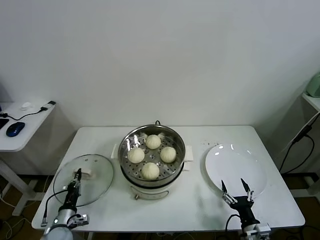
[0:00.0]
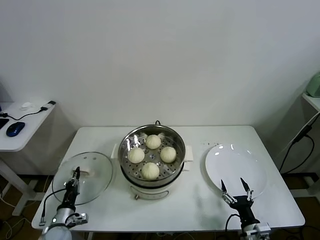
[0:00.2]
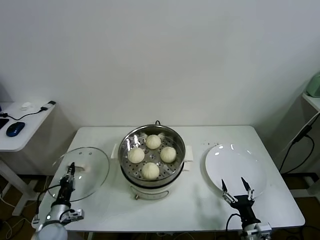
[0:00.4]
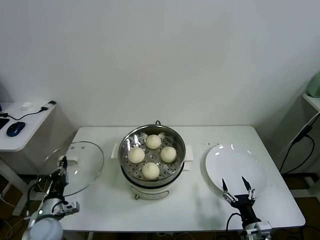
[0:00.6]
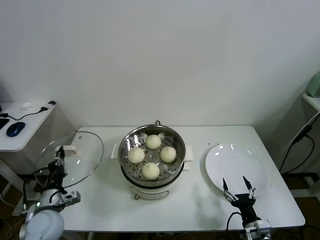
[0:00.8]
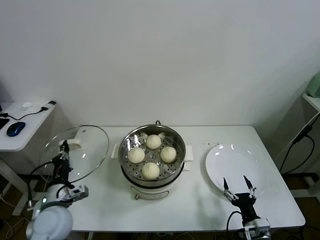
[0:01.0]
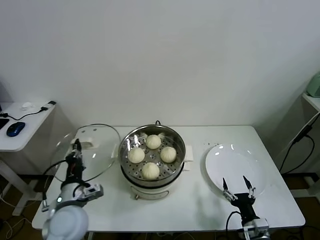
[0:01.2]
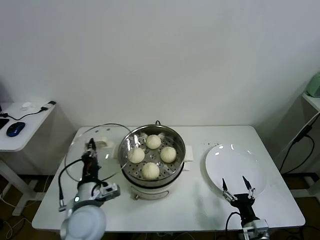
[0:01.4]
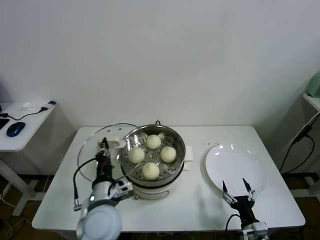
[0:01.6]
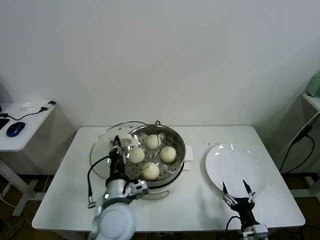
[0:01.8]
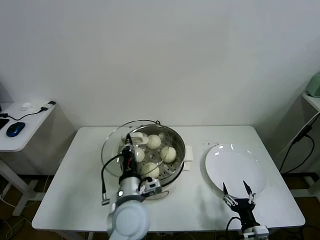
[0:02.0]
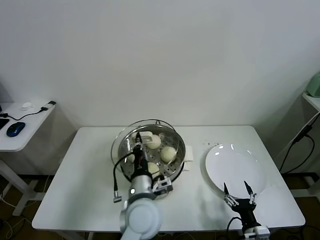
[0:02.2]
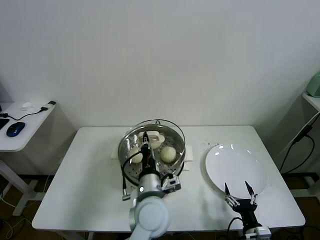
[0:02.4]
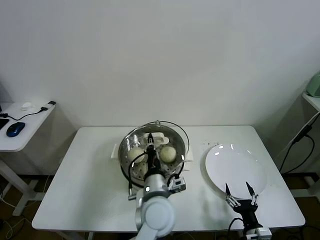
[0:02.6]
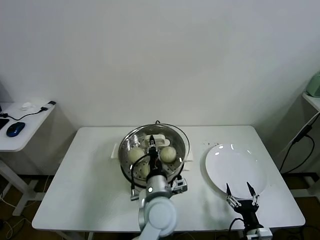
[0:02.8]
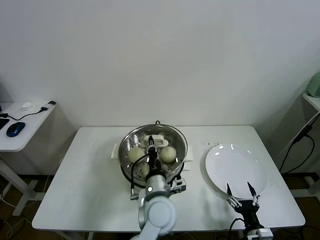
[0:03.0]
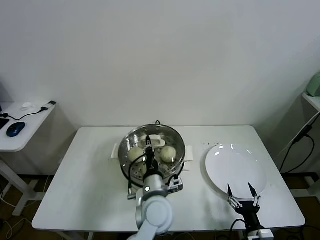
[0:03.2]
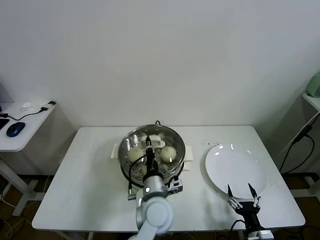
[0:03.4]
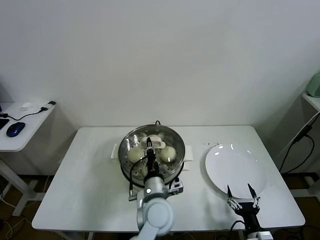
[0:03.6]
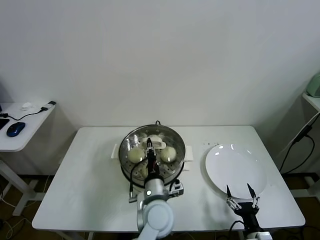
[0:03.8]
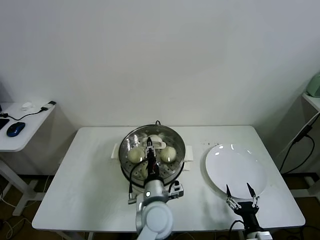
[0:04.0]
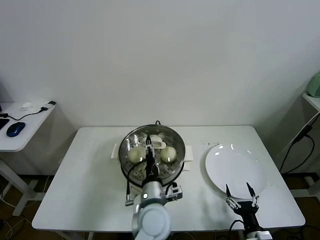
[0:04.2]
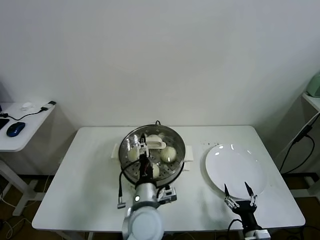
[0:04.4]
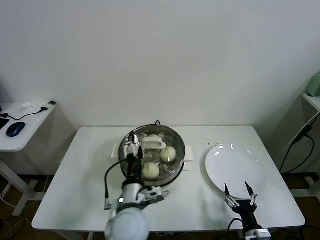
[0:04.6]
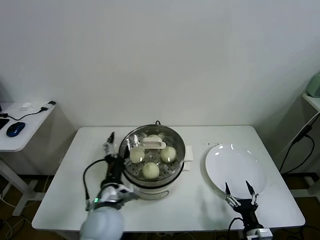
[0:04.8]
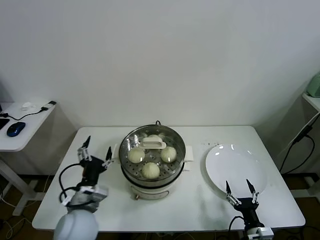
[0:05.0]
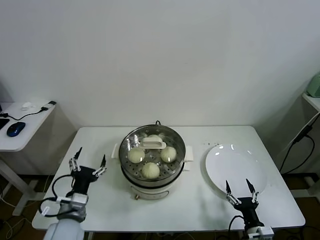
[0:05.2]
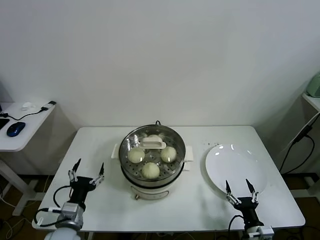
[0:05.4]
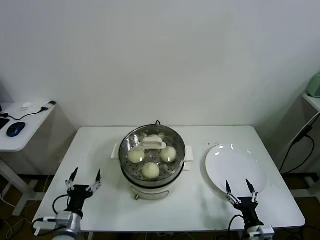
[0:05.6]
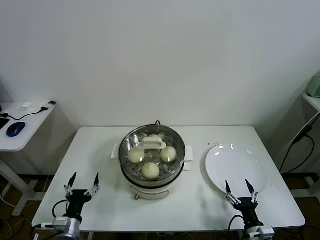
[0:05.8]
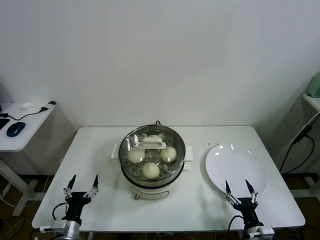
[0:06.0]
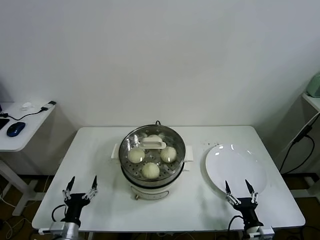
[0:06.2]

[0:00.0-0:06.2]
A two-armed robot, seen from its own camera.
Task of the whole recording: take steamed baozi put them in steamer.
Step, 0:00.2 to 0:04.4: Place the pot lid on the steamer with left gripper.
0:00.0 to 0:01.6: The left gripper shifts roughly 30 cm upward and to the right.
0:01.6 to 0:03.2: The left gripper is displaced to the right by roughly 15 cm.
0:03.2 to 0:04.6: The left gripper shifts approximately 5 cm to the left, and opens.
0:04.6 to 0:06.2: The left gripper travels to the left and downward by about 30 cm.

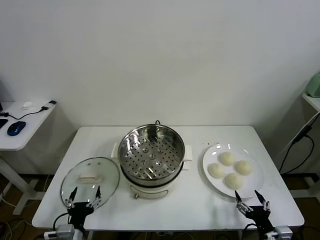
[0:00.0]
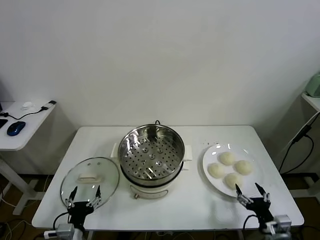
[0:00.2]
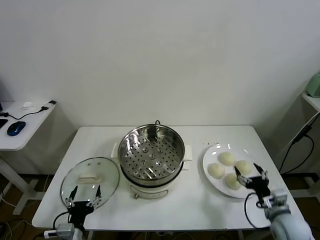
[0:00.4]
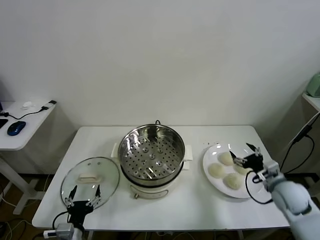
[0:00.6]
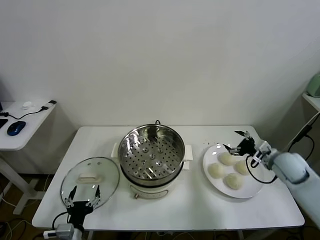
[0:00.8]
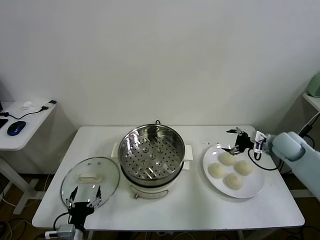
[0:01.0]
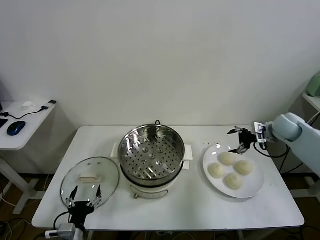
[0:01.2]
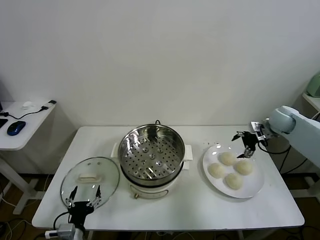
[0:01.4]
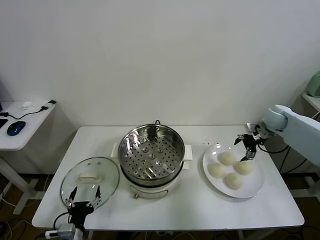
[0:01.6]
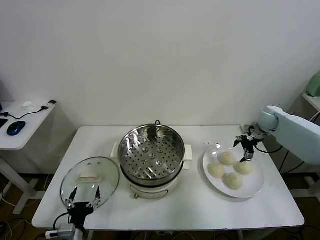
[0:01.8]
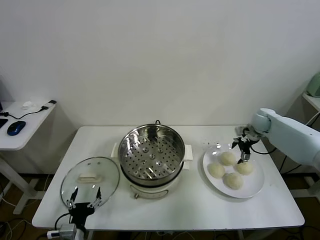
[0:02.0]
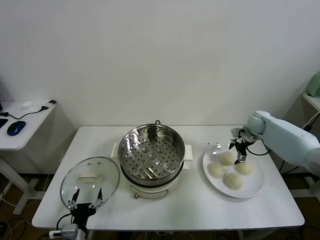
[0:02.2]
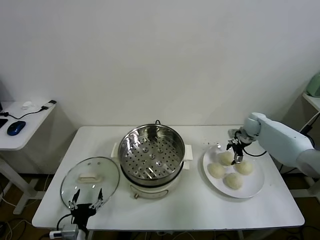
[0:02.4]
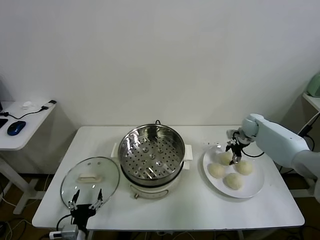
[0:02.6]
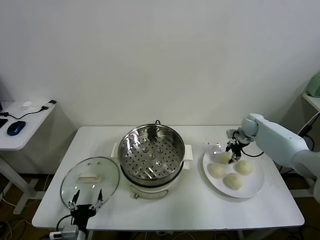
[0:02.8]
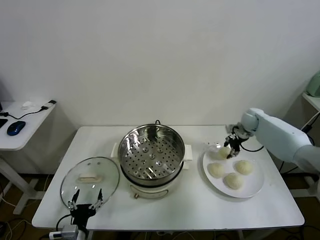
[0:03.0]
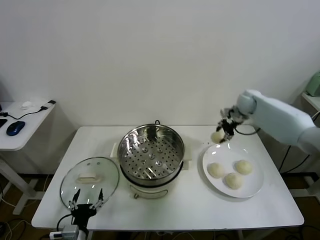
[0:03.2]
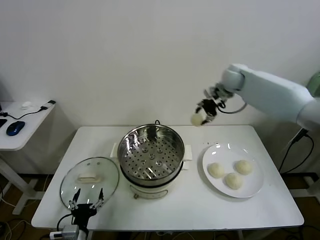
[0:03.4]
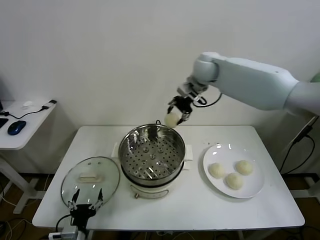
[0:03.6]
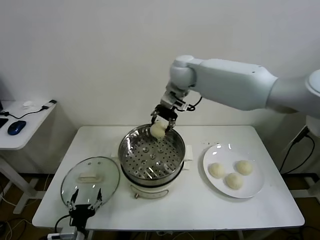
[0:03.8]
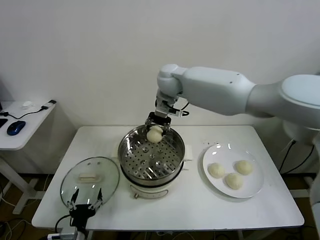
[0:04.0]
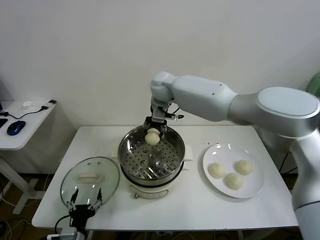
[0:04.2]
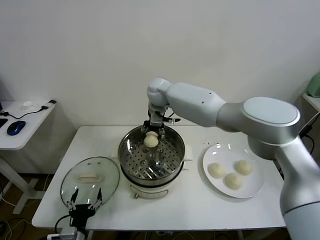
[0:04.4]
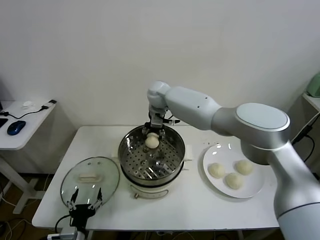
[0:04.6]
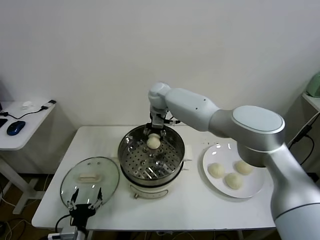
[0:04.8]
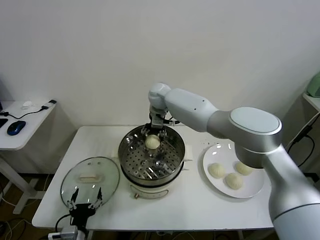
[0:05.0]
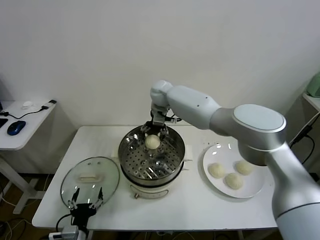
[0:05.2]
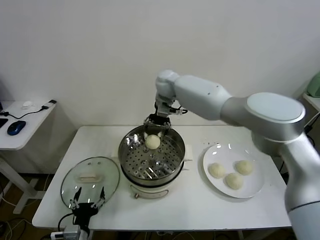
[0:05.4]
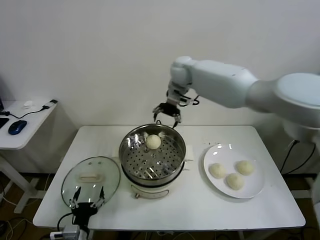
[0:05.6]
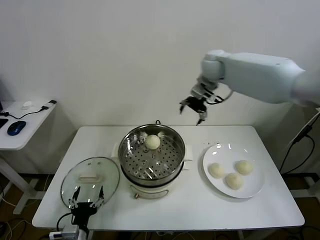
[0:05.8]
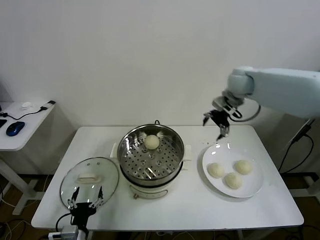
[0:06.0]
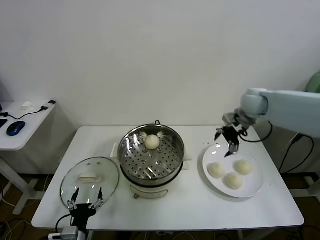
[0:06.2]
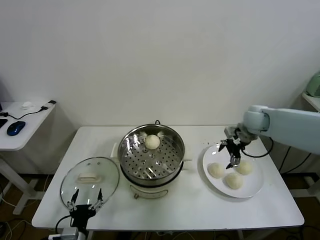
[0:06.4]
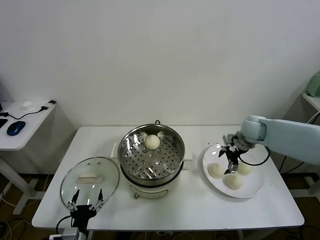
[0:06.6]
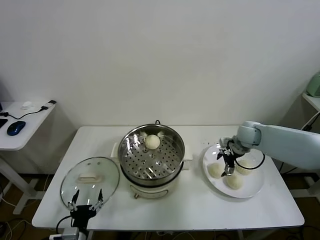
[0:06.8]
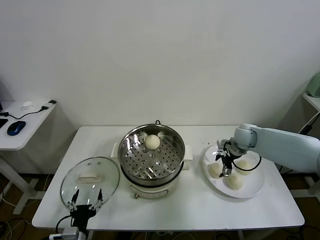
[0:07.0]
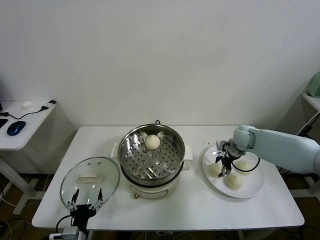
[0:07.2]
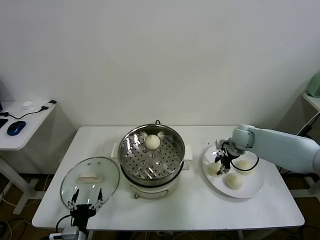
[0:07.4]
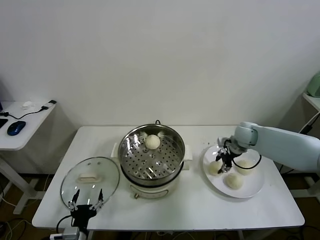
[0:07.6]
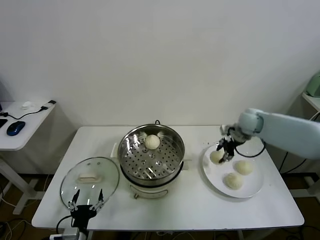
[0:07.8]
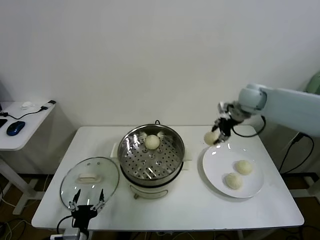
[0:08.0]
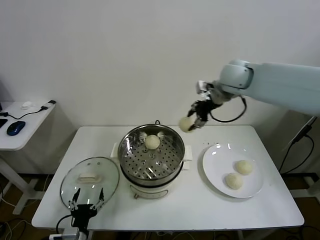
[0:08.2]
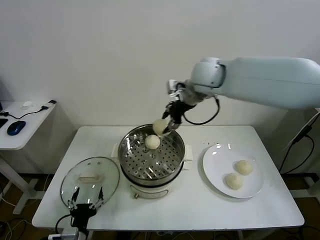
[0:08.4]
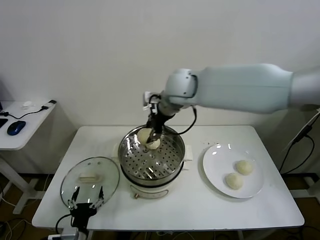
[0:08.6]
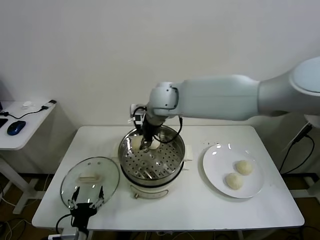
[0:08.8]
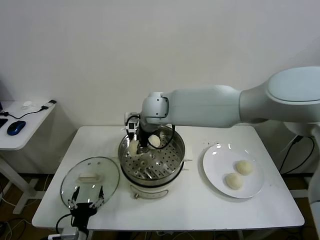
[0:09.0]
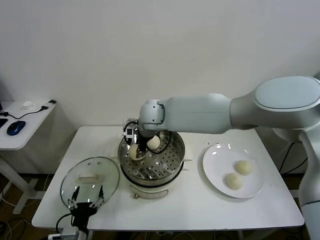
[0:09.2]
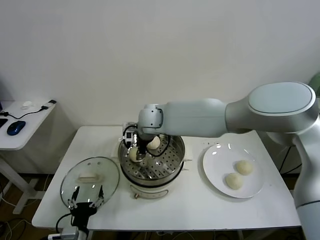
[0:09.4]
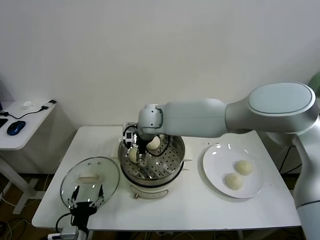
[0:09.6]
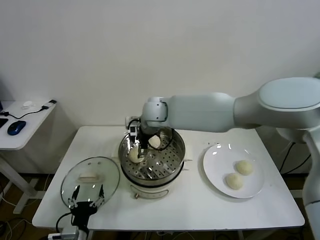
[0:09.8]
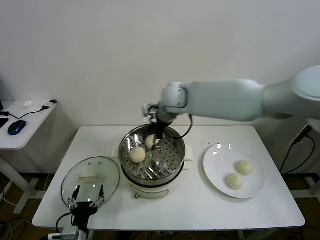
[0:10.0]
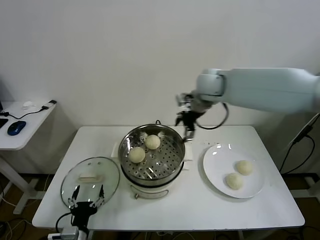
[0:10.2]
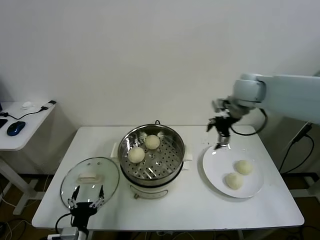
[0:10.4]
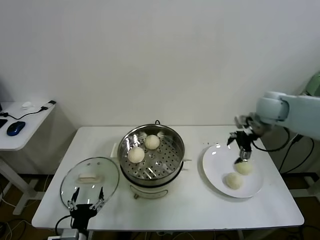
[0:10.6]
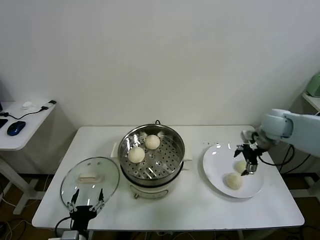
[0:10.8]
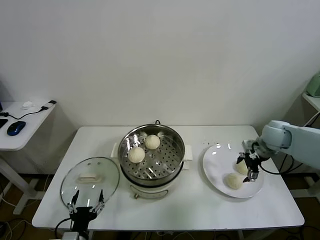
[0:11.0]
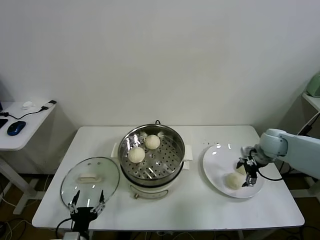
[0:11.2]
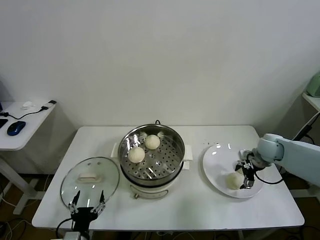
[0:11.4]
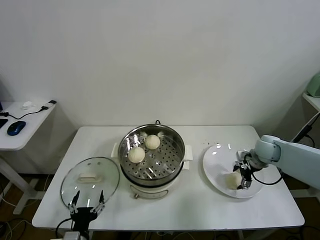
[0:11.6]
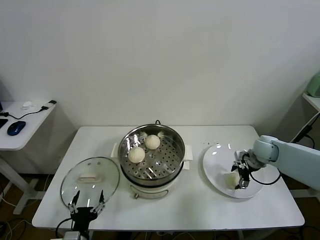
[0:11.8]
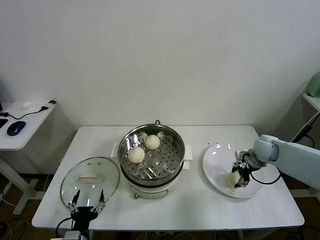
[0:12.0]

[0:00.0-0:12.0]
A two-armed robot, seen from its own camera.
Task of the whole recording: take steamed baozi put them in steamer.
Step, 0:00.0 to 0:02.6: Grasp the baozi in the plate with right gripper.
Step, 0:02.8 to 0:05.2: Place the baozi on the steamer with right gripper.
Step, 0:05.4 to 0:07.2: Grasp the baozi in the plate with right gripper.
Step, 0:07.4 to 0:09.8: Place the baozi on the steamer with right gripper.
0:01.6 to 0:03.0: The right gripper moves to the left and forward, roughly 10 cm, and closes its fingers.
0:03.0 to 0:04.4: The right gripper is displaced to the left by some 40 cm.
0:04.4 to 0:06.0: The right gripper heads to the right, covering about 30 cm, and opens its fingers.
0:06.0 to 0:07.6: The right gripper moves downward, about 15 cm, and closes up.
0:07.6 to 0:09.0: The right gripper travels to the left by about 35 cm.
0:09.0 to 0:10.4: The right gripper travels to the right by some 30 cm, and opens.
0:10.4 to 0:12.0: The right gripper shifts some 25 cm downward and to the right, and closes its fingers.

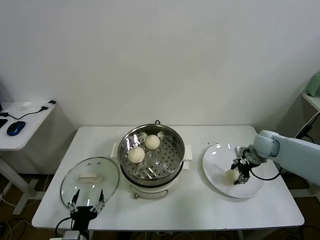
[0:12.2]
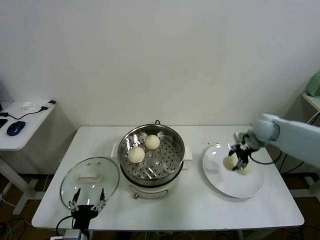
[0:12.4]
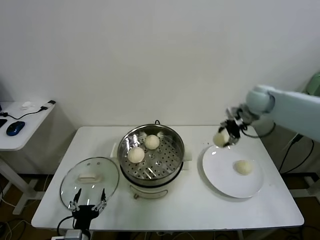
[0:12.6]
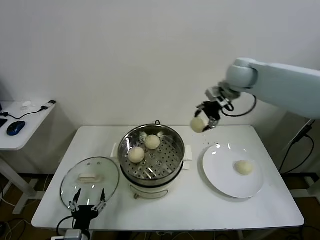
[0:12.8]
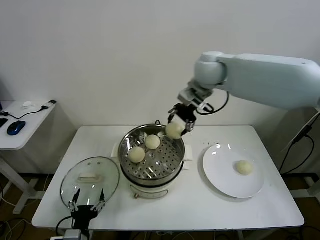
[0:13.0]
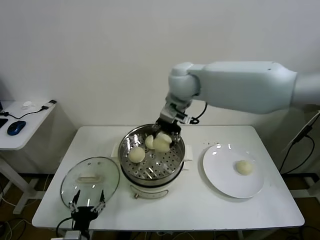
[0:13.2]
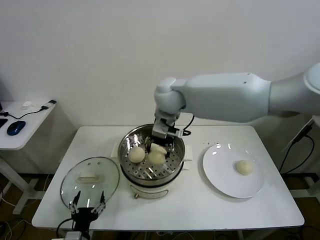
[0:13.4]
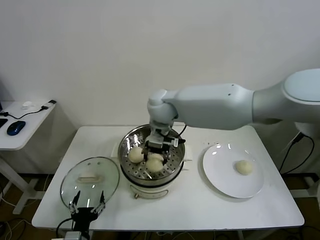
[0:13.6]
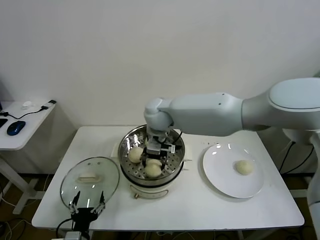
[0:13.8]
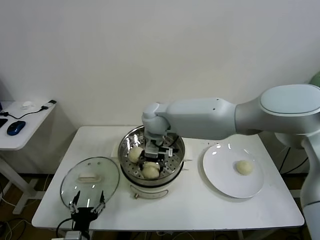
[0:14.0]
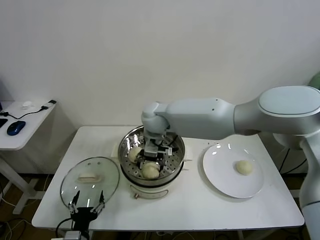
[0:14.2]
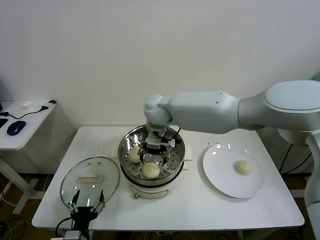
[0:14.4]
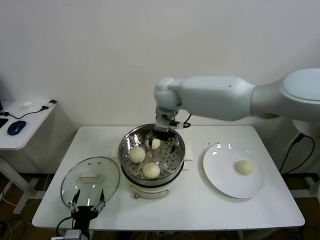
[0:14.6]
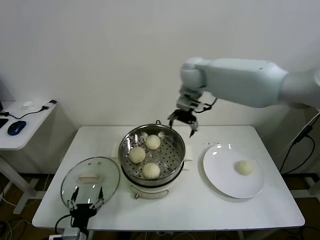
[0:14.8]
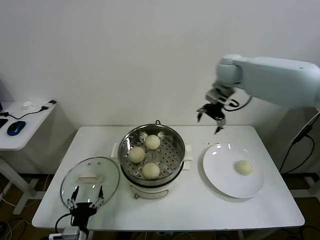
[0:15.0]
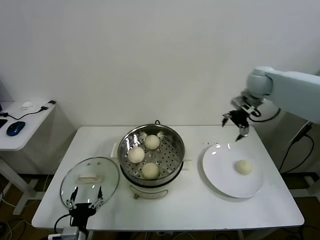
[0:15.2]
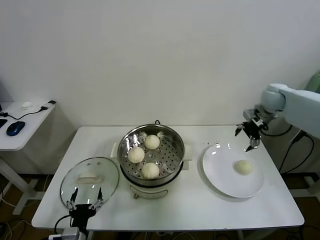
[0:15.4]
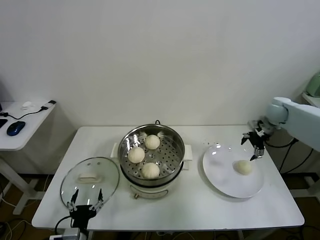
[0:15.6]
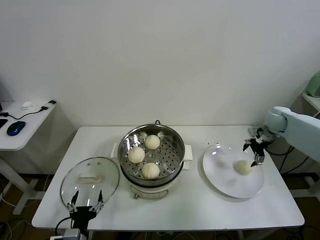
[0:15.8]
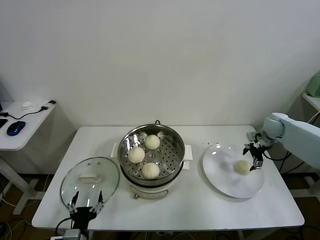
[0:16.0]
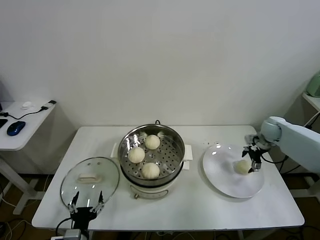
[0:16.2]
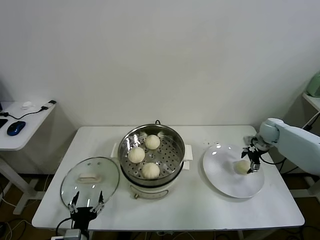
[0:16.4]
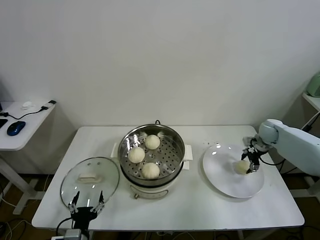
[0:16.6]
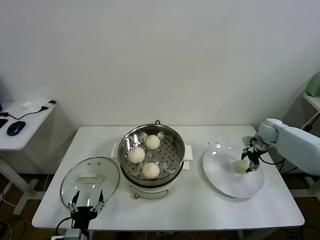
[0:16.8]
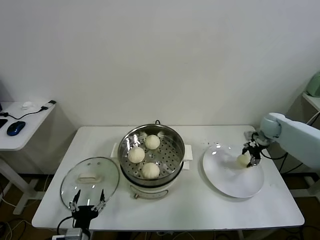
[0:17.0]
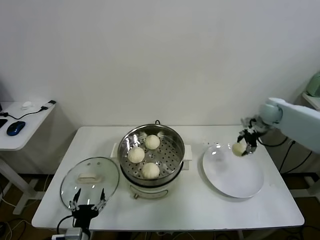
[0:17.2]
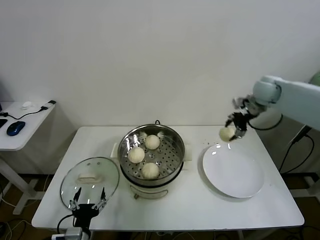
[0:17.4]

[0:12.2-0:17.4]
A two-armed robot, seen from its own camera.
Task of the whole recording: take steamed baozi put them in steamer.
Step, 0:12.4 to 0:14.4: Place the baozi on the steamer with right gripper.
Step, 0:14.6 to 0:16.6: Grasp the baozi in the plate with right gripper.
0:12.2 to 0:14.0: The right gripper moves to the left, roughly 40 cm.
0:14.0 to 0:15.6: The right gripper travels to the right by roughly 40 cm, and opens its fingers.
0:15.6 to 0:17.4: The right gripper is displaced upward and to the left by some 10 cm, and closes up.
